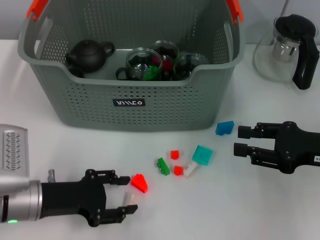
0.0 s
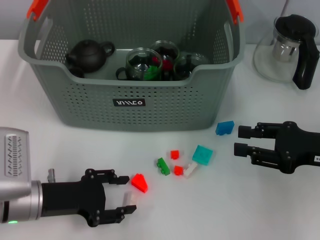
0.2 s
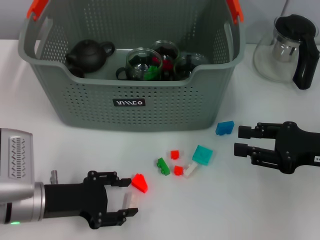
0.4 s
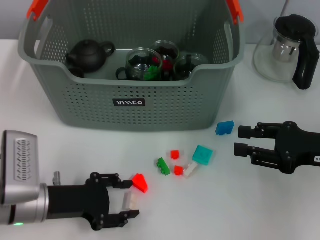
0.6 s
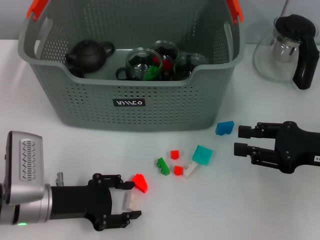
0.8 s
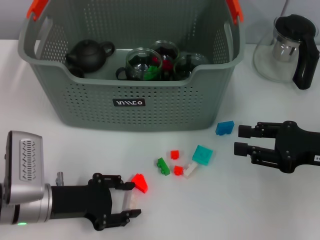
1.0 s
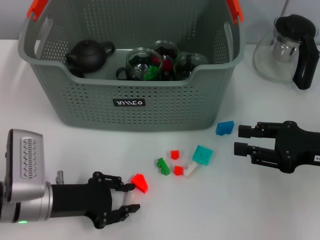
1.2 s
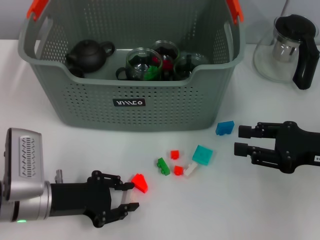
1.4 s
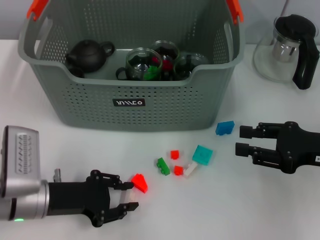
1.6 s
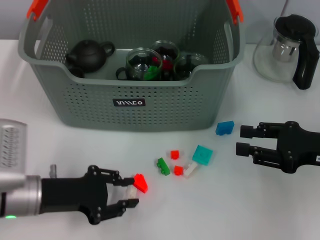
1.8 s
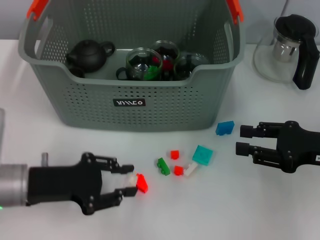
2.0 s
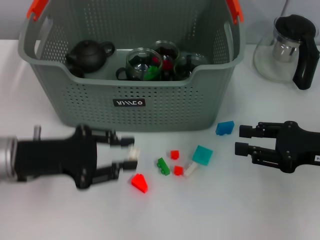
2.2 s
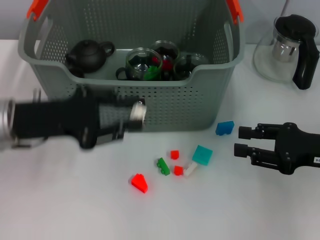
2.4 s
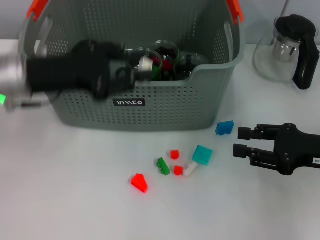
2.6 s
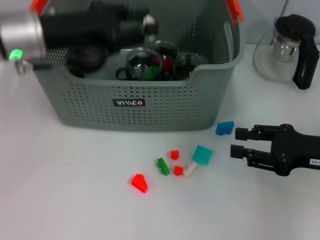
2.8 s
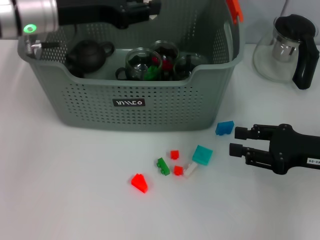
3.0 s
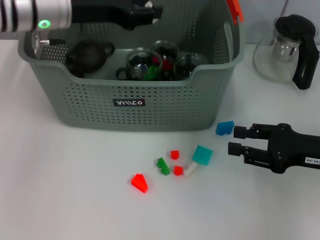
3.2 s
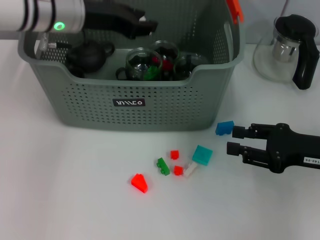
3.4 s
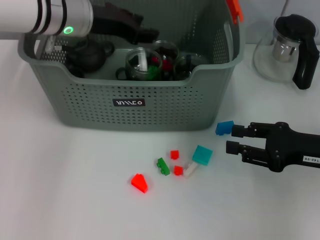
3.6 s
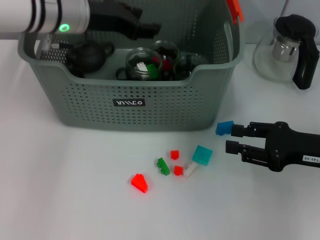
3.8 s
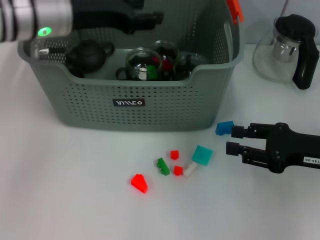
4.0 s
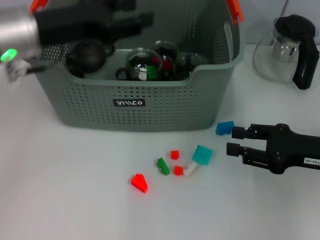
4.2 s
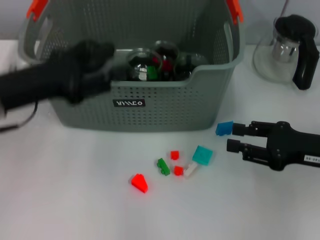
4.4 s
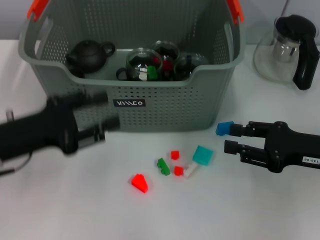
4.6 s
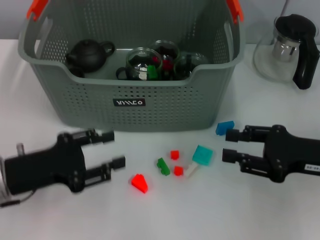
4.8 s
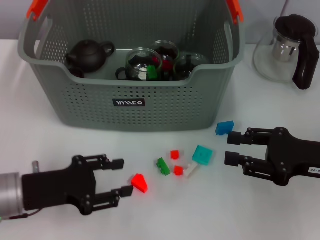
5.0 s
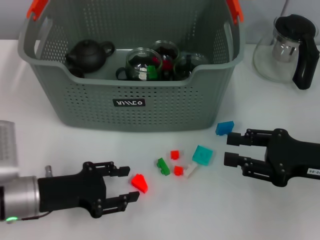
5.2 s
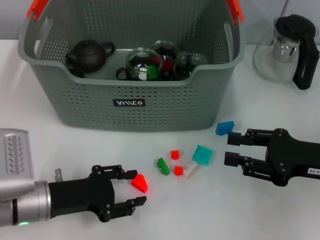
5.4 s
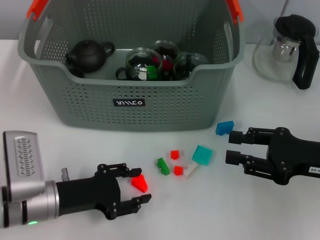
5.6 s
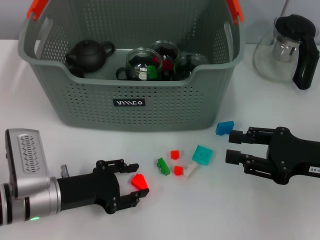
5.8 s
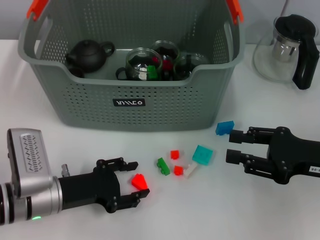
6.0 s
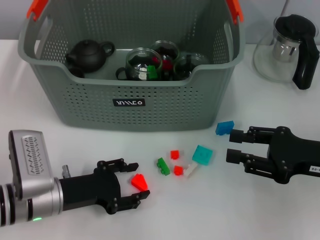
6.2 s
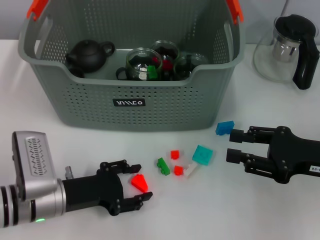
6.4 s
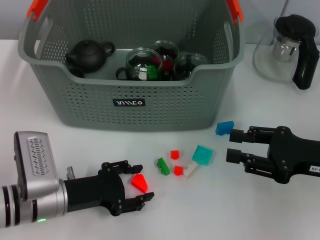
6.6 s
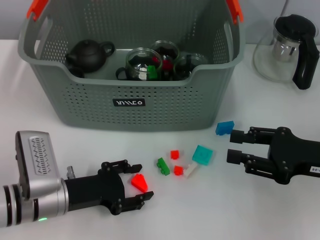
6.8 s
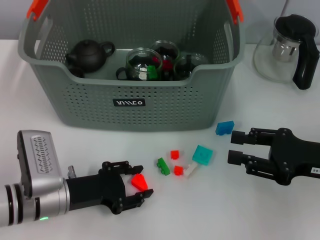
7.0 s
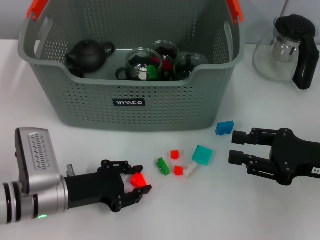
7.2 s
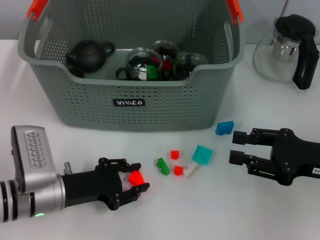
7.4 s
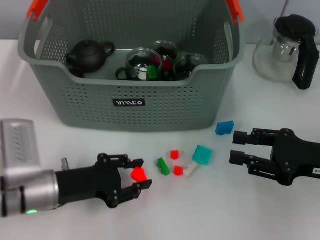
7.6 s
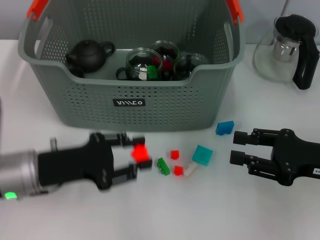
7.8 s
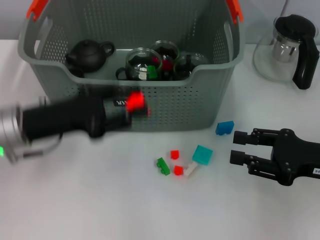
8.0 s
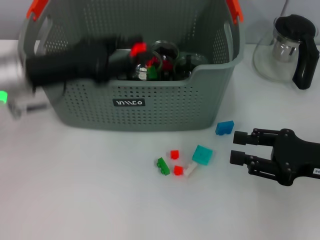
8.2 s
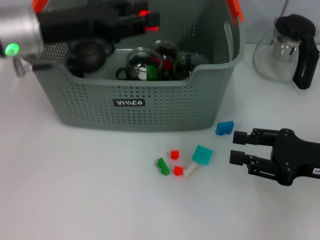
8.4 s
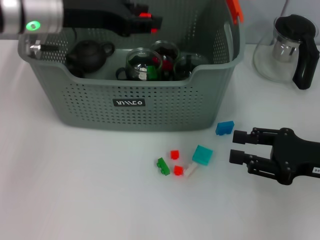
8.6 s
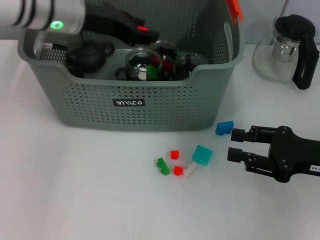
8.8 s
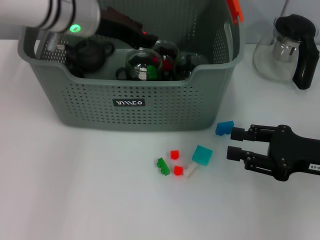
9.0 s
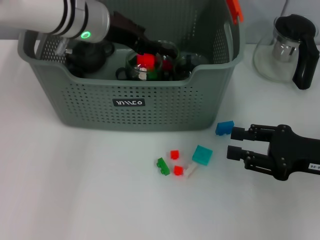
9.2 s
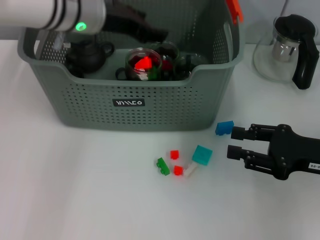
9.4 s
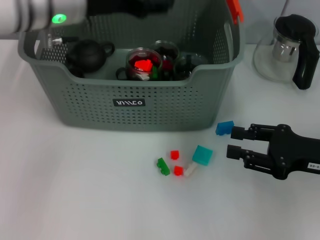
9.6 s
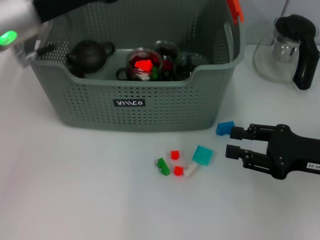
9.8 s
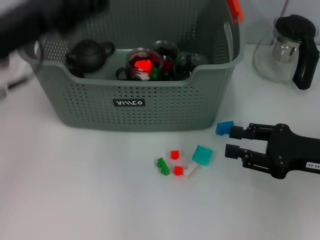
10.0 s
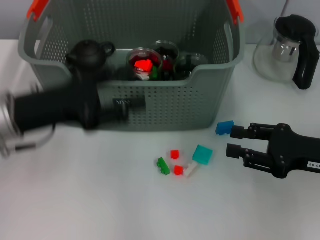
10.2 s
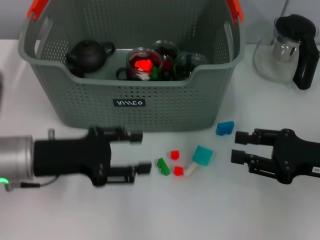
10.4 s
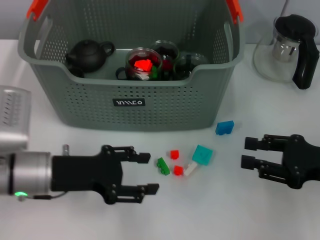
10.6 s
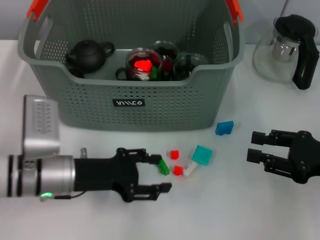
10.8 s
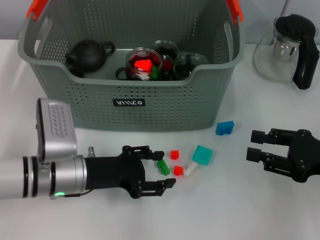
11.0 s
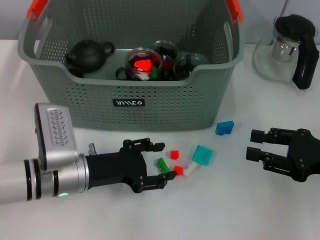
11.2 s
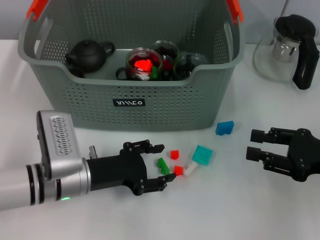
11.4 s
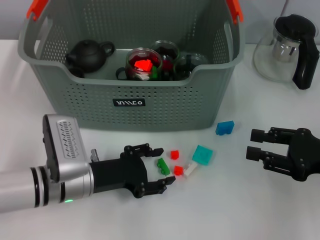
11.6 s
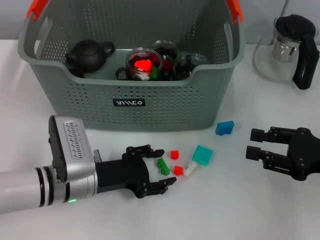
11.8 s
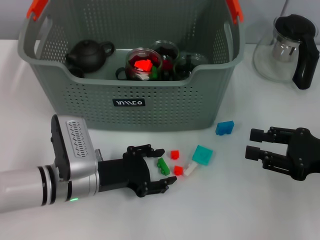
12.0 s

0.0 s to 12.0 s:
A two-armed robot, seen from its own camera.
Task of the whole recording: pick up the teacup on the table and place it into the storage bin, pick up the block on the table and place it into the storage bin.
Step, 1.4 to 3.6 s: Place the white block in the storage box with left gripper.
Step, 3.8 to 7.0 s: Grasp the orange block with left gripper.
Step, 7.4 to 9.2 s: Place the orange block in the storage box with left gripper.
0.0 to 1.6 s: The grippers stay close to where they were, moving slightly.
1.6 to 3.0 s: The left gripper is displaced upward and forward by about 25 cm.
3.0 to 4.4 s: The left gripper is displaced backward, downward and to the left by some 10 cm.
4.4 to 6.0 s: The left gripper shifts approximately 15 cm downward.
6.0 to 7.6 s: The grippers make only small movements.
7.6 to 9.0 s: The left gripper travels forward, upward and to the right by about 25 cm.
9.0 to 10.4 s: The left gripper is displaced backward, downward and to the left by some 20 cm.
10.4 to 12.0 s: The left gripper goes approximately 10 cm downward and to the right.

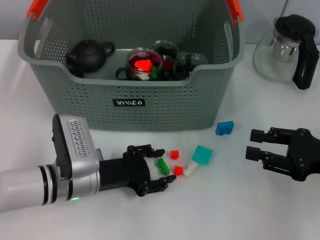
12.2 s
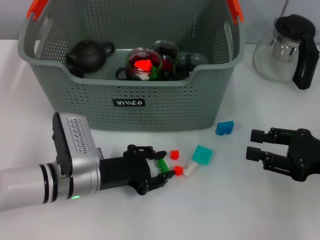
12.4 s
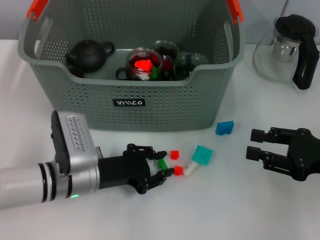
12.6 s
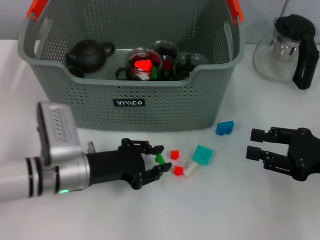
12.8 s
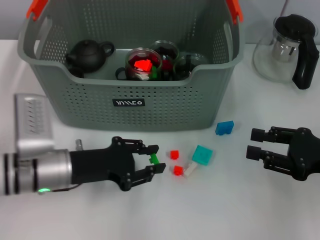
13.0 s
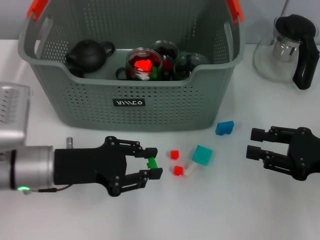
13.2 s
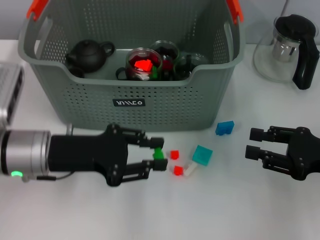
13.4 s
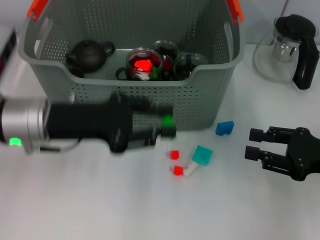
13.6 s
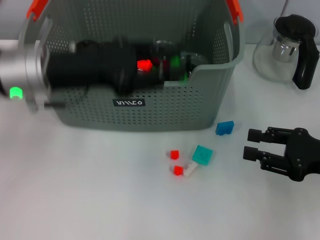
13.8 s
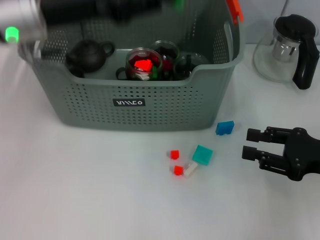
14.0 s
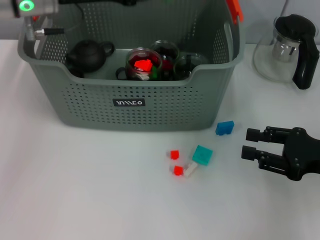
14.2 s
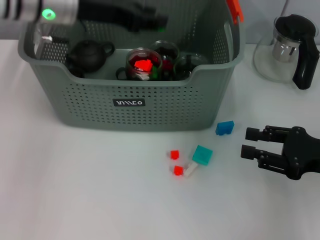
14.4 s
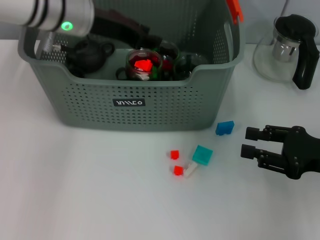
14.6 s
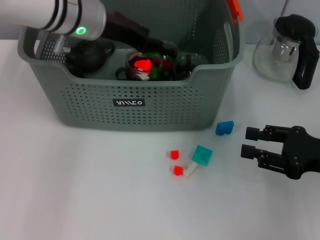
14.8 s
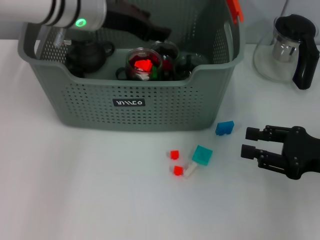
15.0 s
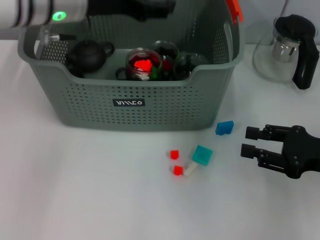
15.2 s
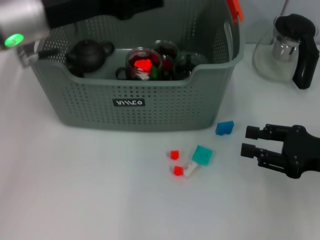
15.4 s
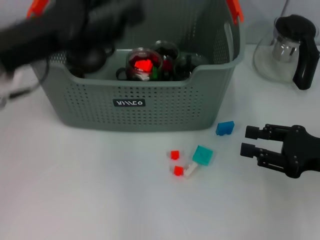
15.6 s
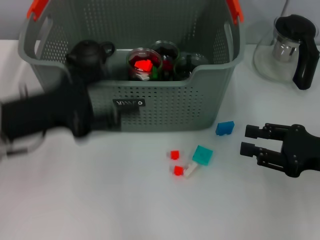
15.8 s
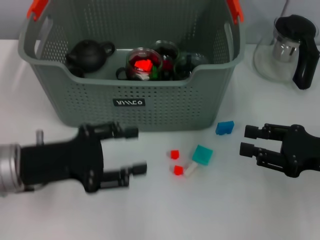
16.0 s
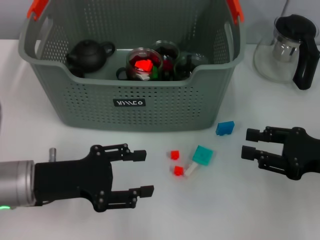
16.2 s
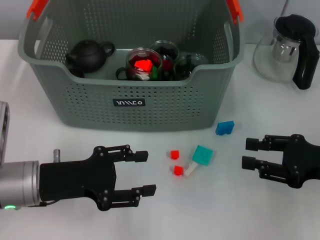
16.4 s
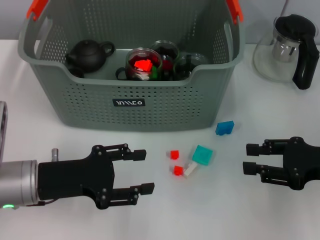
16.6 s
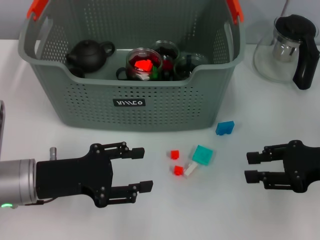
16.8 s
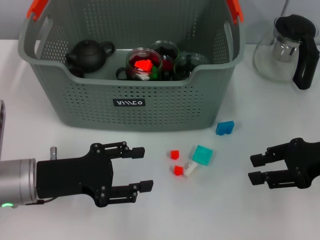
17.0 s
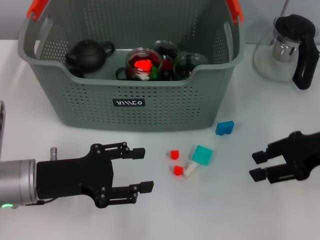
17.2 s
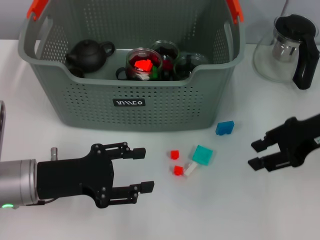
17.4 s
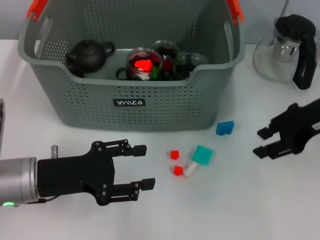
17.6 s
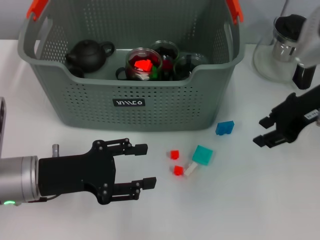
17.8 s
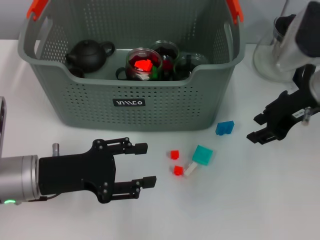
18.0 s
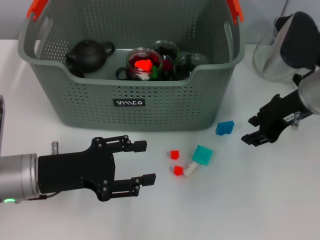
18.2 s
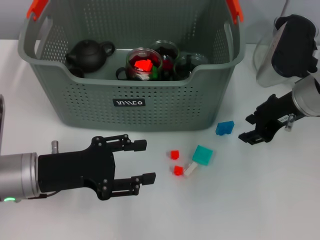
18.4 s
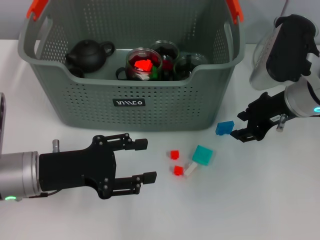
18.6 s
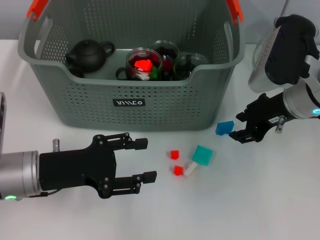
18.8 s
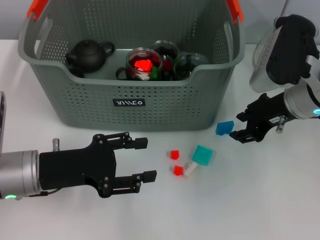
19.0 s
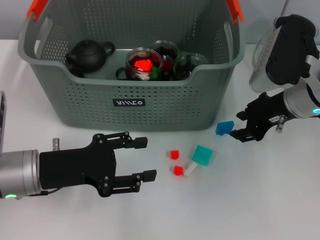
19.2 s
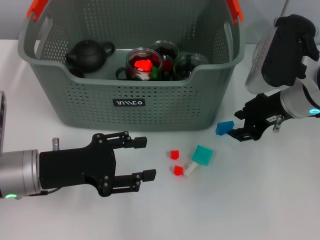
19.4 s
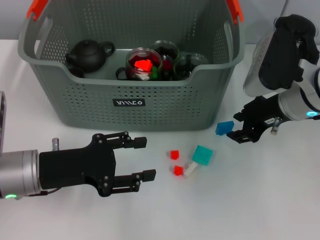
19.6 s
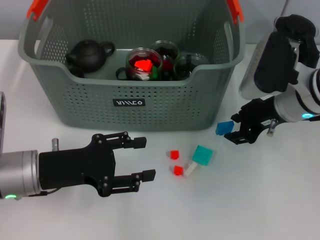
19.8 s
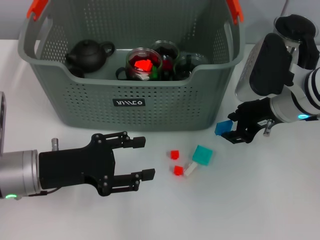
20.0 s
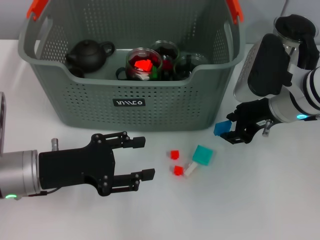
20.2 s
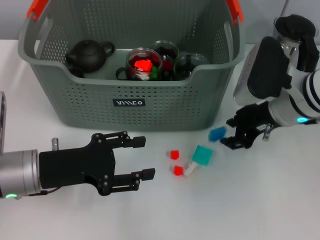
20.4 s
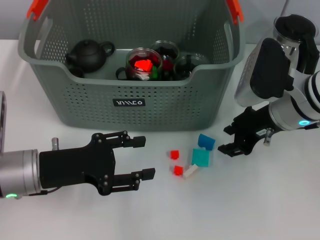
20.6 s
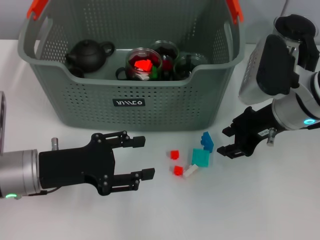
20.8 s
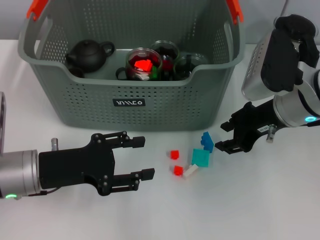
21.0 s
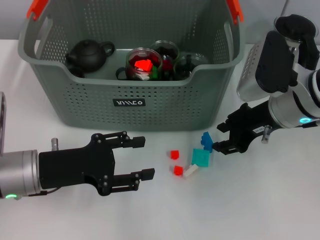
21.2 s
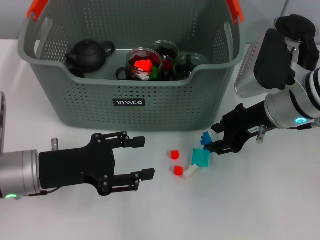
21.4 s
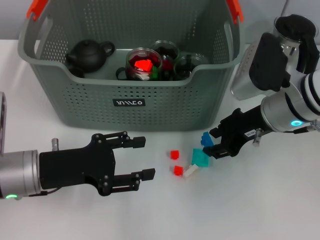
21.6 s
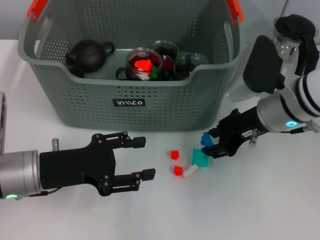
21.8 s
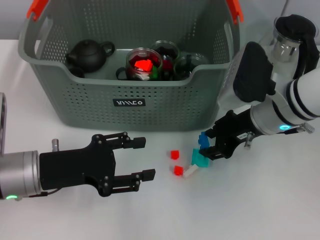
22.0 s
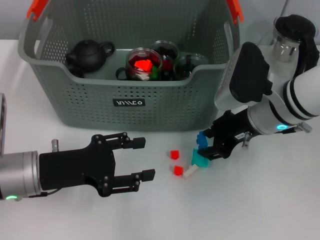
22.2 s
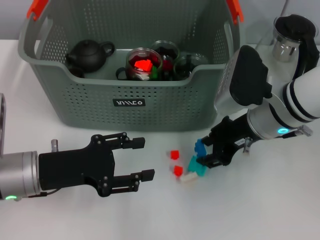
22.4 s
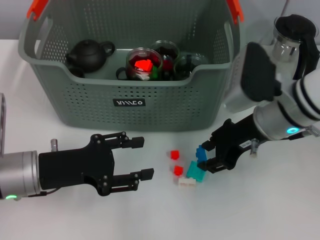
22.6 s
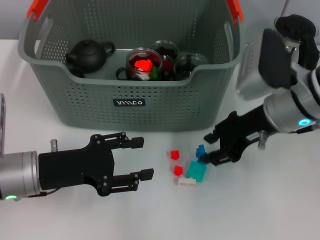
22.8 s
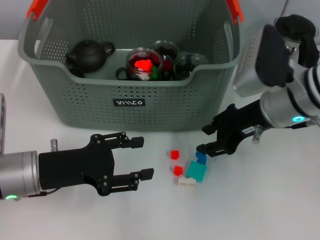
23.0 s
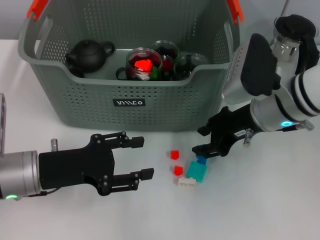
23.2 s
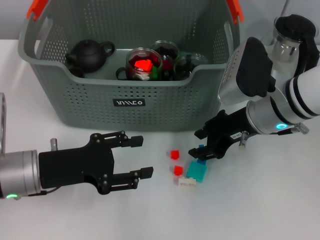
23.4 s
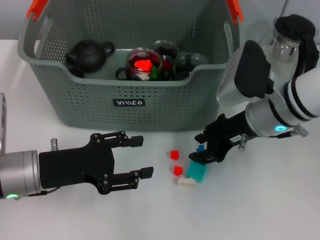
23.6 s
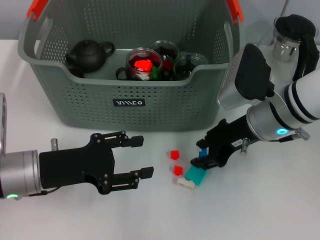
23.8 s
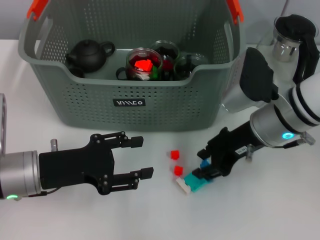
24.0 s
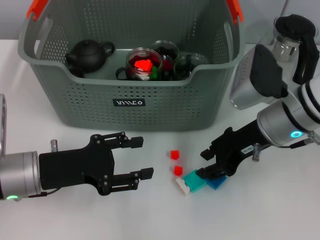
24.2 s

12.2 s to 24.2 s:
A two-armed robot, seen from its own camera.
Task of the whole recording: pick up the teacup on the table and place it into the storage bin, pick up the block on the table and place it into the storage bin.
Step, 12.6 to 14.8 s: Place the green block in the storage box with left gripper.
12.2 to 13.8 s: The left gripper moves upward, roughly 20 cm, and closes.
13.8 to 15.2 s: The left gripper moves forward and upward, roughly 5 cm.
15.2 to 16.6 s: The left gripper goes about 20 cm downward and backward.
16.6 to 18.2 s: The right gripper shifts about 15 cm forward, to the left and upward.
18.2 to 21.2 s: The grippers stay close to where they were, moving slightly.
21.2 to 24.2 s: The grippers move only a little.
